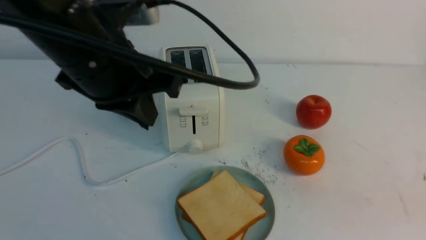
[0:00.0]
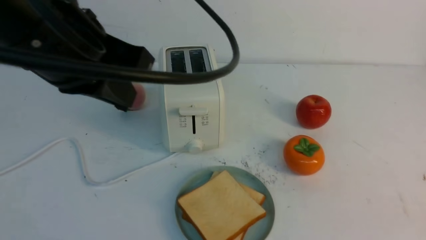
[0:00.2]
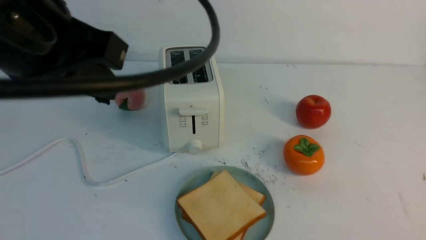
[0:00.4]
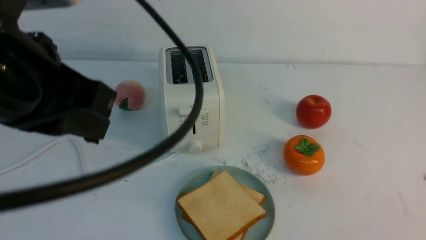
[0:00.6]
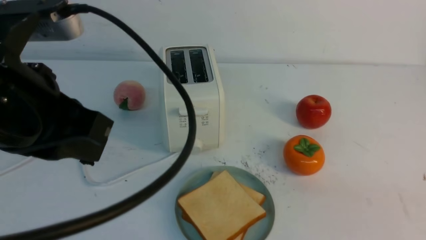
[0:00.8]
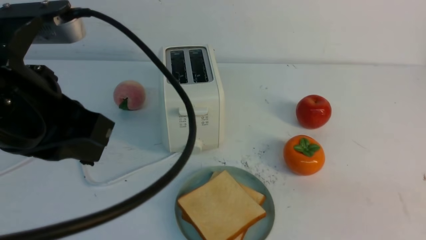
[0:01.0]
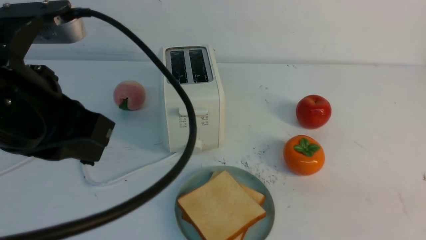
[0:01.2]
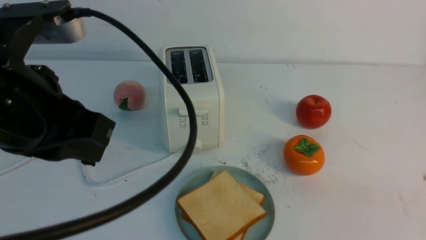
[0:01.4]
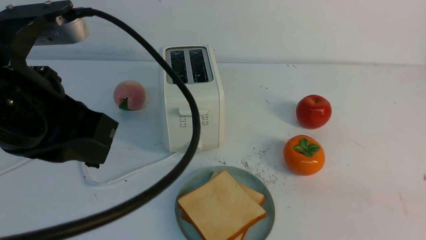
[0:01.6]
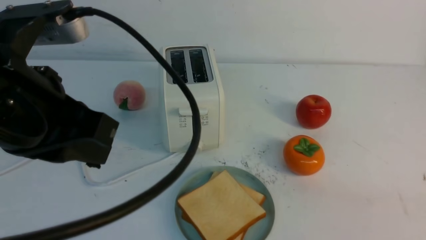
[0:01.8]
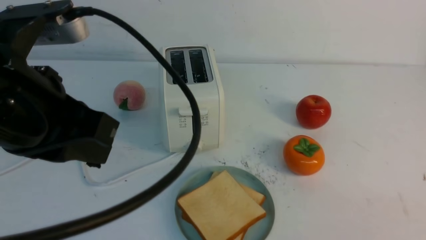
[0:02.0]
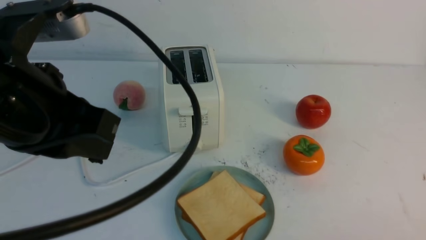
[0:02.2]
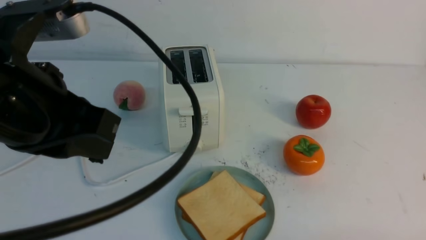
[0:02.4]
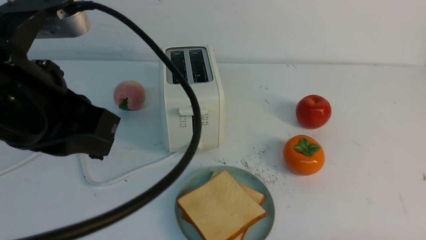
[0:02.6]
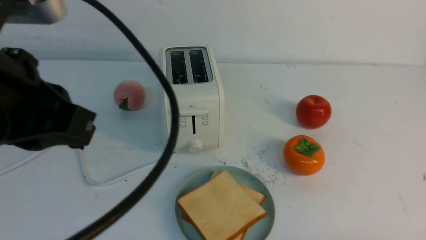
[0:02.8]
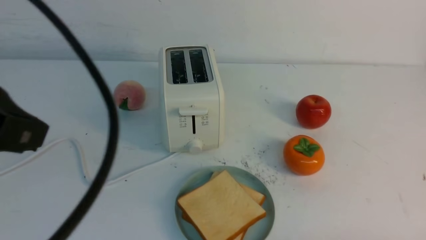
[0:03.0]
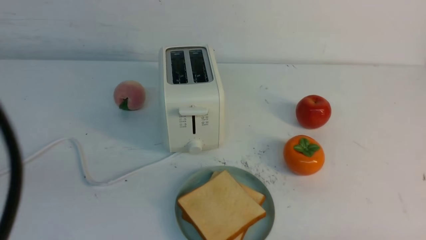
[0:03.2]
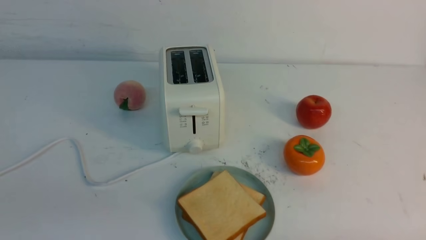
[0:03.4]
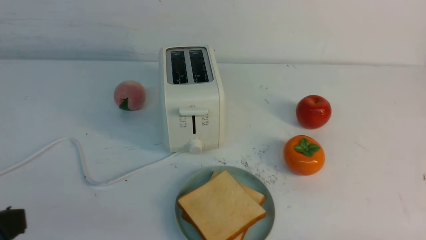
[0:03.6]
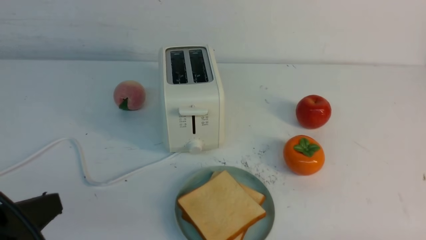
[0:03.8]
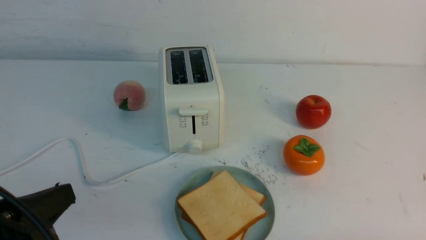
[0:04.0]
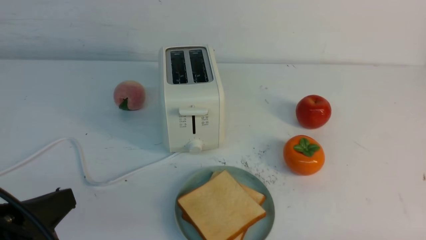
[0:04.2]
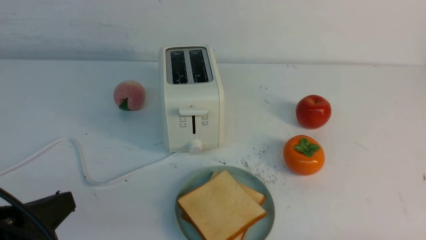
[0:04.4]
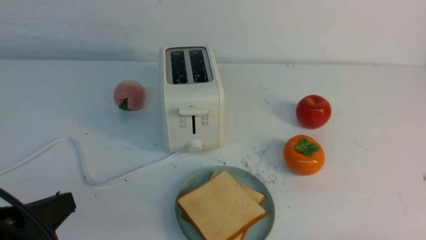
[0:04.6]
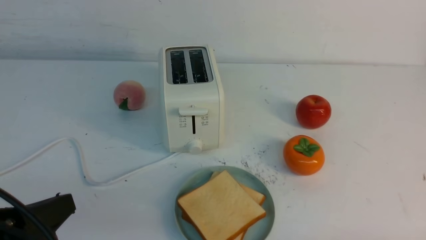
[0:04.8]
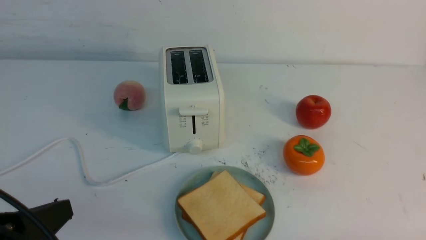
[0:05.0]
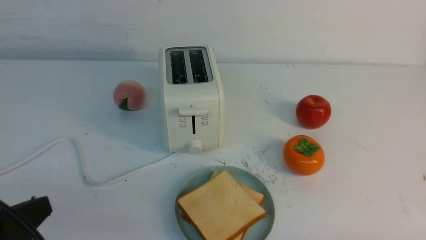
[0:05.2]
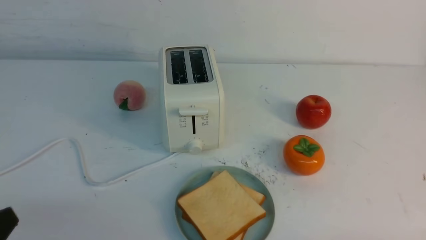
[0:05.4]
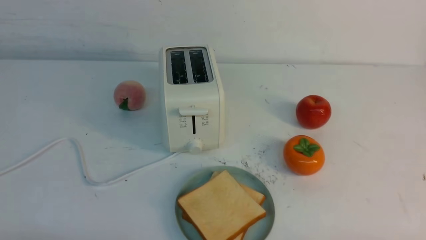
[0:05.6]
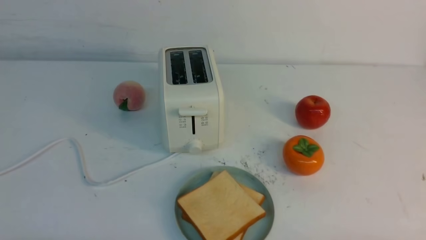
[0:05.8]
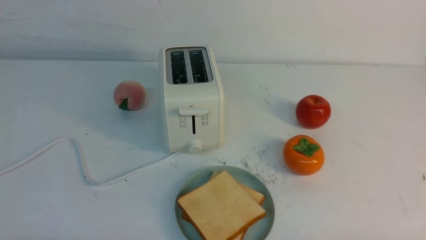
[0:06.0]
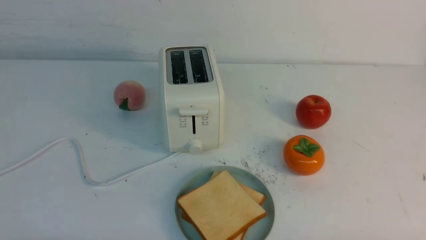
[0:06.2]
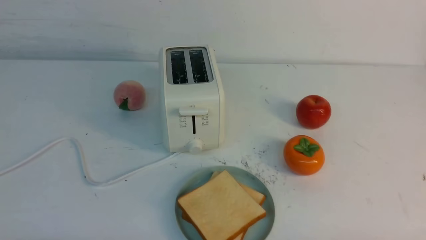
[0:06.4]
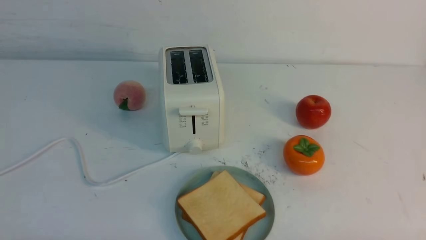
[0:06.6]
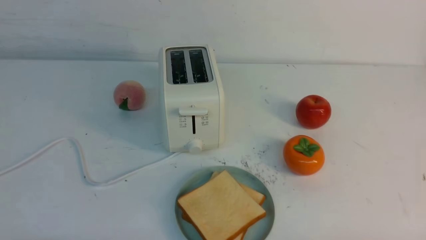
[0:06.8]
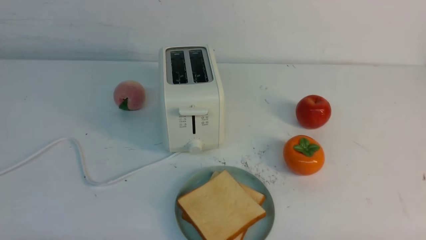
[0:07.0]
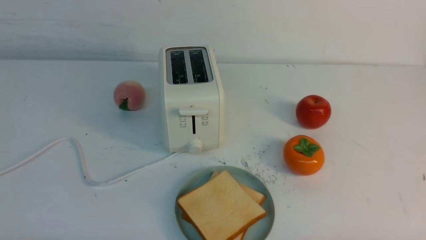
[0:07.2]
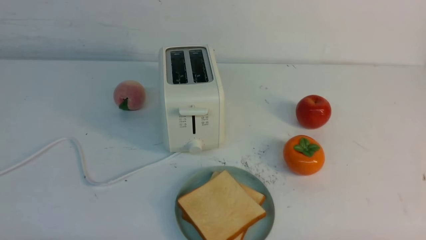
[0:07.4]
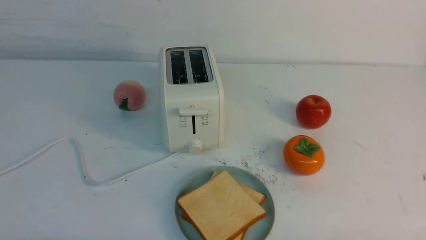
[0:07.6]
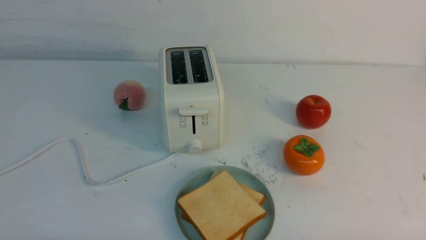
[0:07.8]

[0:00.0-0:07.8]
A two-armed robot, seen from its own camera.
Task of the whole recording: take toasted bread from bread machine on white table place on plate.
0:00.0 to 0:01.6: The left gripper shifts approximately 10 cm backward, while the right gripper heads downward, covering approximately 5 cm.
0:01.6 to 0:03.2: The right gripper travels downward by approximately 10 cm. Meanwhile the left gripper travels backward and to the left by approximately 10 cm.
0:03.2 to 0:04.6: The left gripper travels downward by roughly 15 cm.
0:04.6 to 0:06.2: The left gripper is displaced downward by approximately 10 cm.
0:06.2 to 0:07.8: Both grippers stay put.

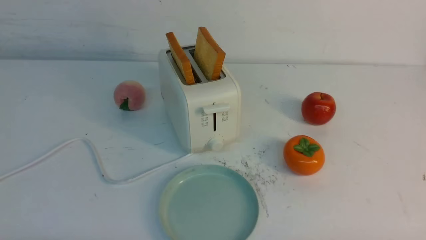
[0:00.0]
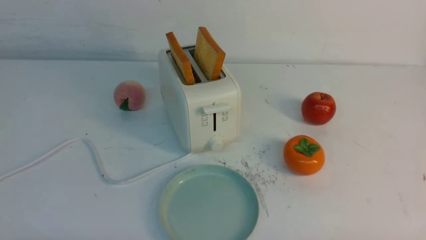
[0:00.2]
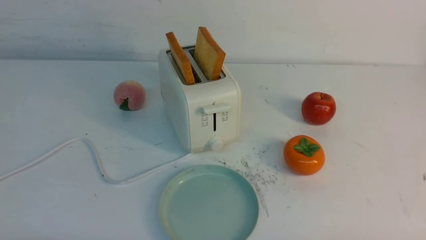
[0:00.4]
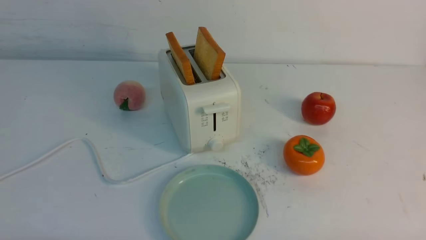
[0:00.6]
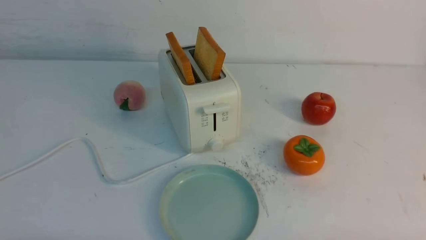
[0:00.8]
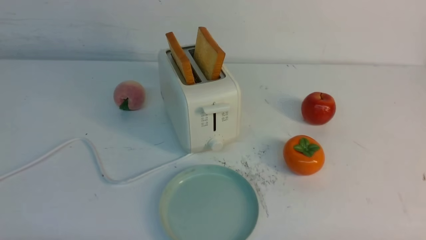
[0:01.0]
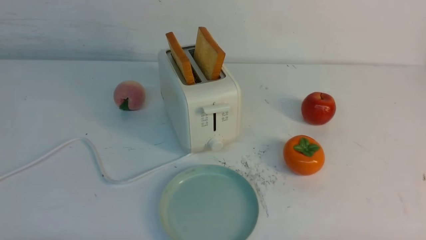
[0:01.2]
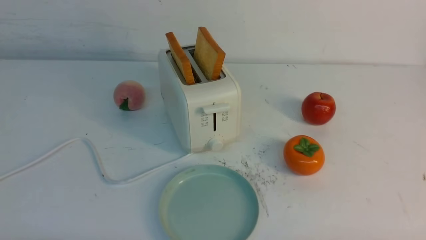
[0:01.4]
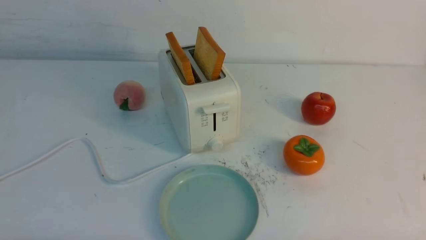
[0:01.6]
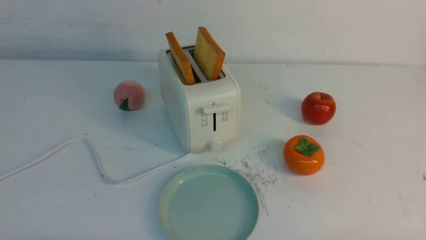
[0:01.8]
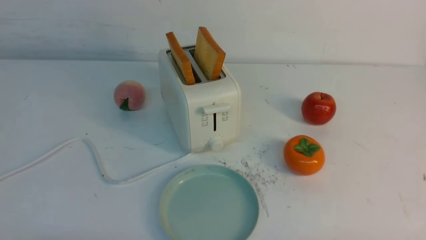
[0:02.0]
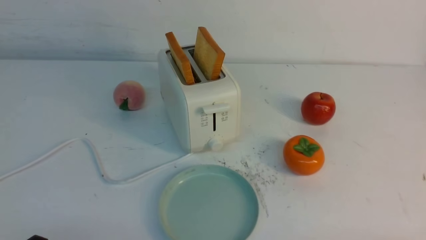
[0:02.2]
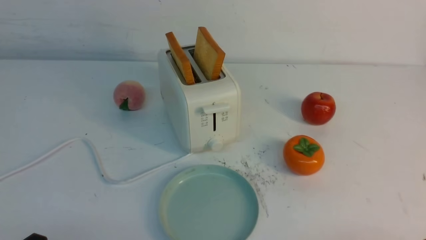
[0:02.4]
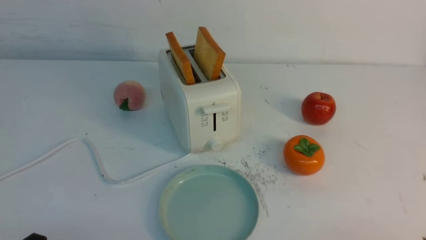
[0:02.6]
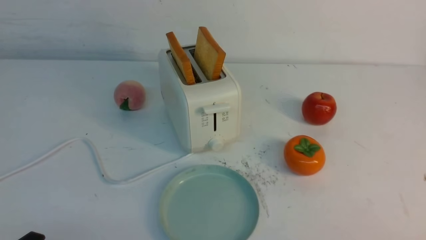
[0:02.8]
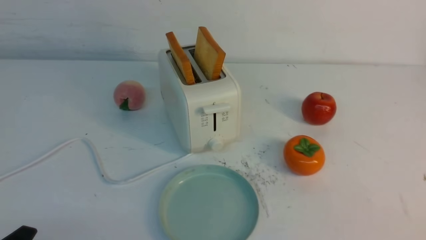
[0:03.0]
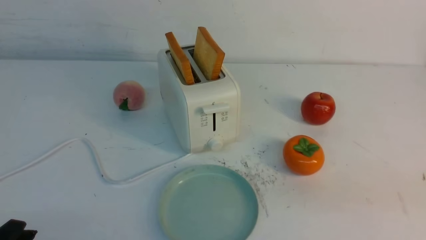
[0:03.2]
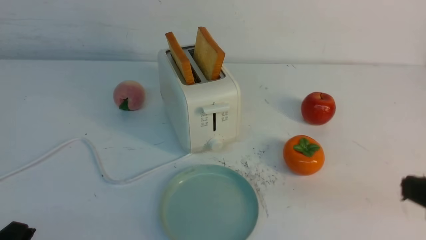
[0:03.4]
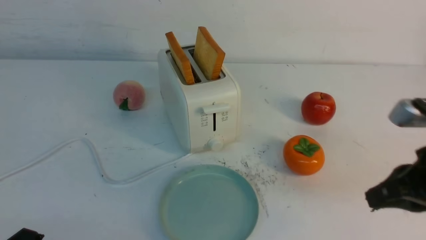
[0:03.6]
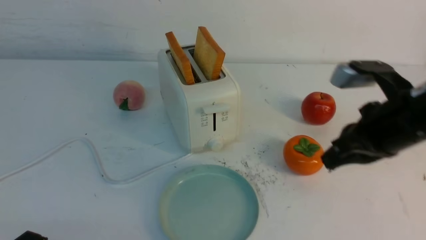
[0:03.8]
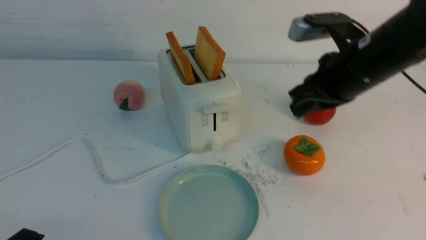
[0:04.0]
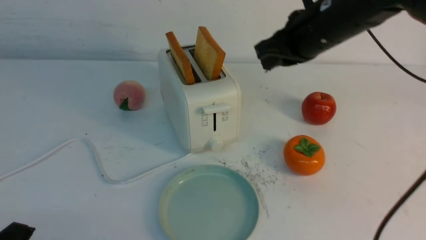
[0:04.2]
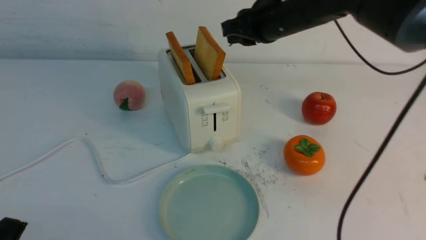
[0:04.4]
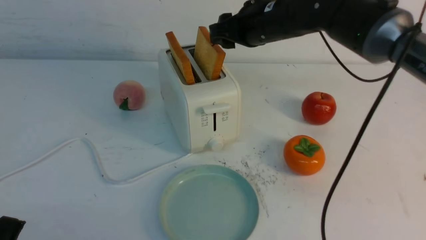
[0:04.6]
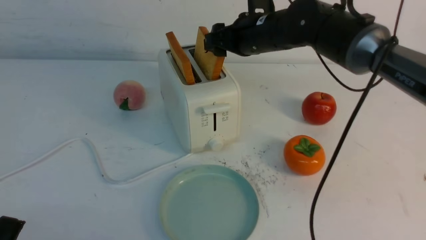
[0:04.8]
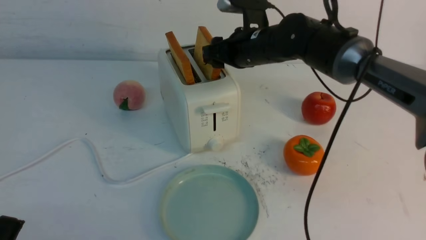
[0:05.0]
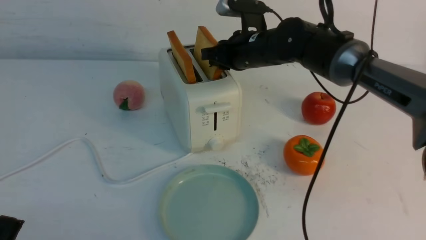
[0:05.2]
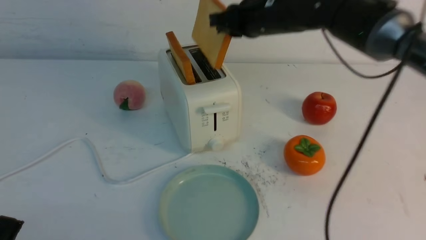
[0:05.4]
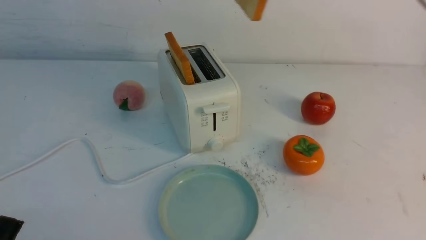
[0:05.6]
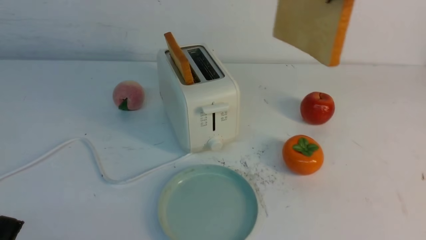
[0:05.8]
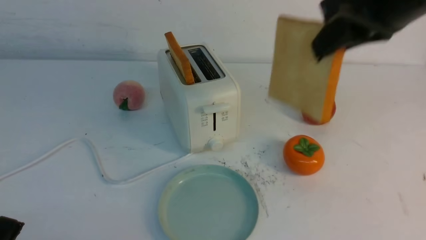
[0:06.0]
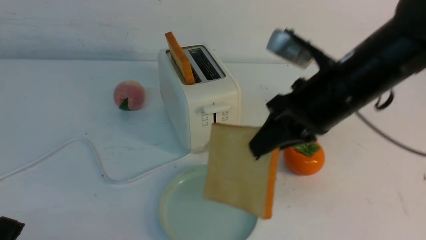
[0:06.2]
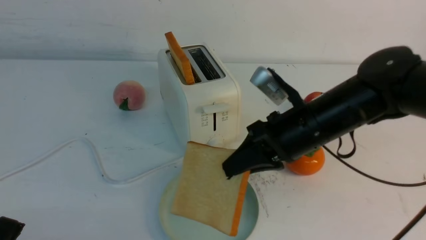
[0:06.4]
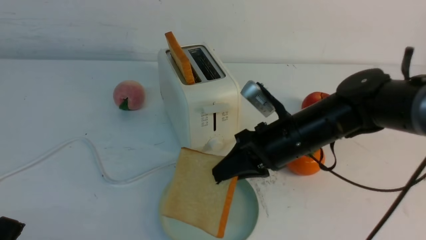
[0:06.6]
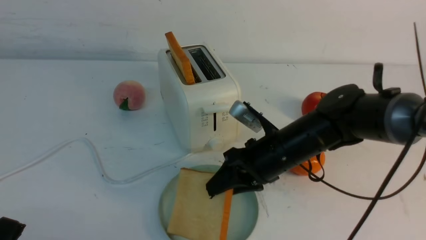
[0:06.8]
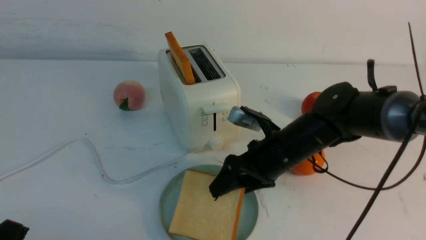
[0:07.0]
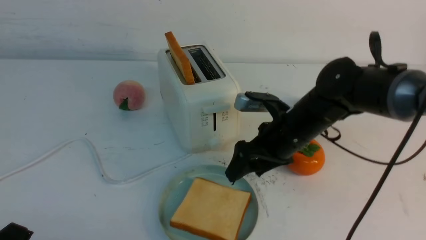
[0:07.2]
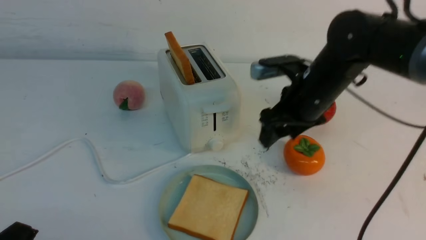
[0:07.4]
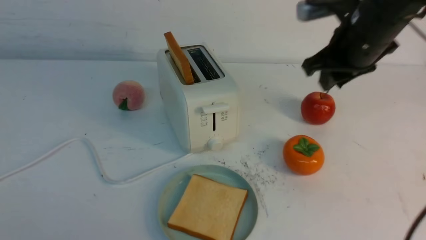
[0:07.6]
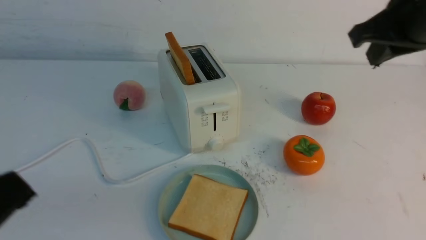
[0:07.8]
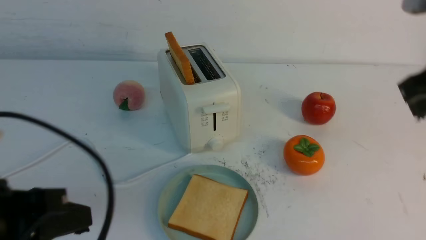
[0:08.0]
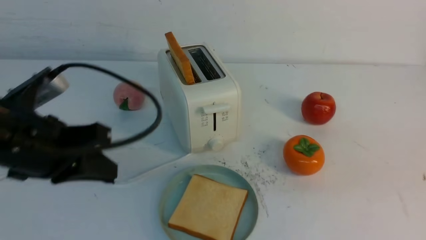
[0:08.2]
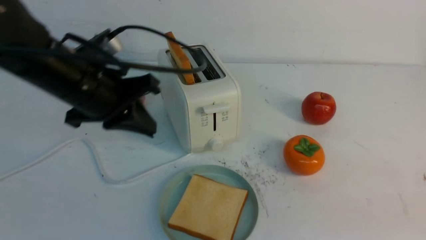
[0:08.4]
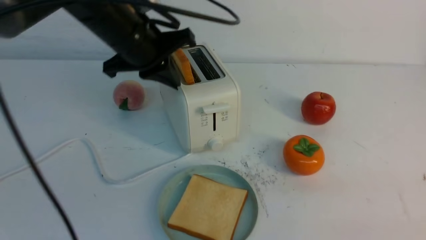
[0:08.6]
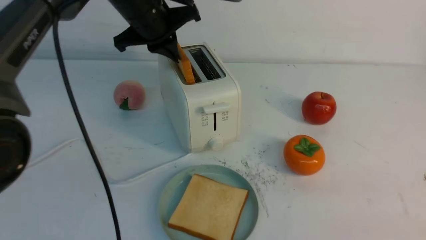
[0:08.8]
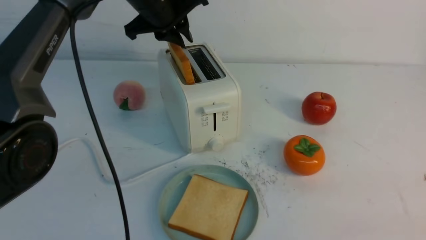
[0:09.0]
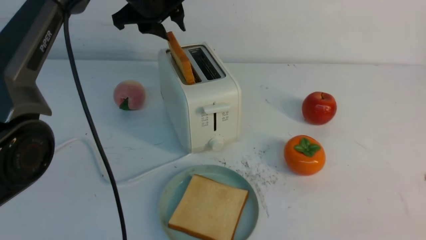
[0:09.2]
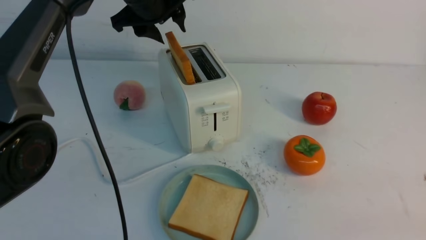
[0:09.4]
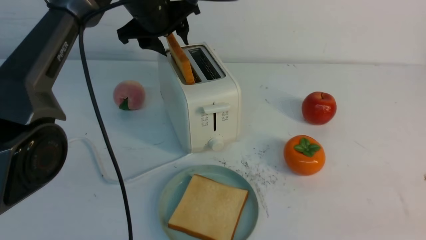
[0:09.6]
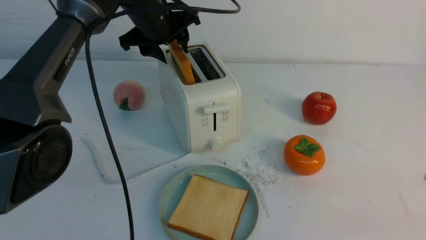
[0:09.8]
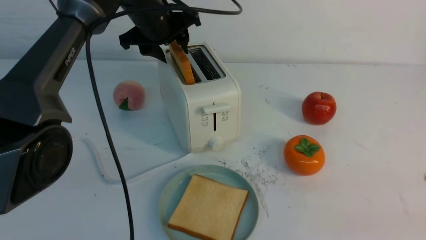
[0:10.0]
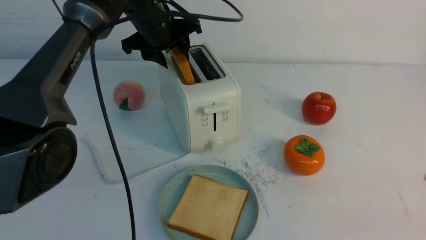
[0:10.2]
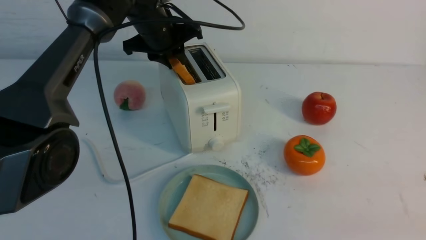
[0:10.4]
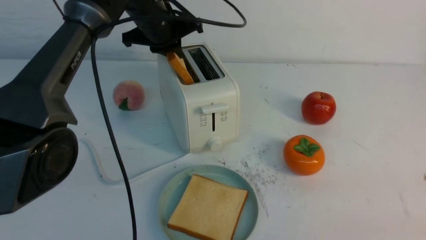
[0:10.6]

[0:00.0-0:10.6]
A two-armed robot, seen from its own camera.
Task of the whole recording: take toasted bread from bread machine on white table place on plate.
Step, 0:00.0 to 0:05.4: use the right arm to take out a slice of bread.
Step, 0:05.6 to 0:07.2: use the right arm to put a slice of bread into the plate.
0:00.0 to 0:01.6: The two grippers keep their place.
0:03.0 to 0:04.6: The right gripper moves forward and to the left, some 40 cm, and opens up; the left gripper closes its fingers.
0:04.6 to 0:06.0: The right gripper swings up and down, some 20 cm each way, with 2 reversals, and closes its fingers.
0:06.0 to 0:07.6: The right gripper heads forward, covering about 5 cm, moves roughly 20 cm downward and comes back, and opens, then closes once more. Meanwhile the left gripper goes some 10 cm upward.
0:07.6 to 0:09.0: The left gripper is displaced forward by approximately 40 cm. Meanwhile the right gripper goes roughly 30 cm backward and to the right, and closes.
0:09.0 to 0:10.6: The left gripper opens and closes again.
